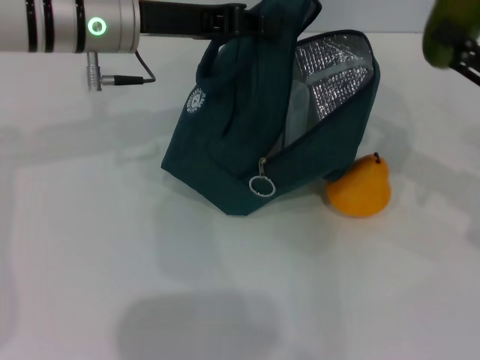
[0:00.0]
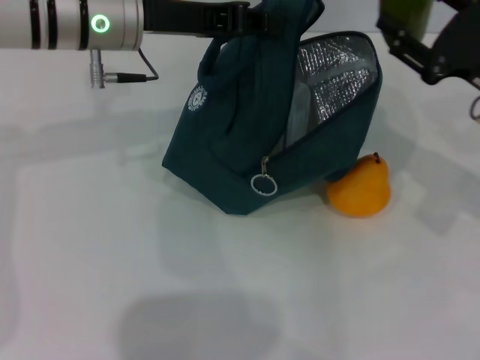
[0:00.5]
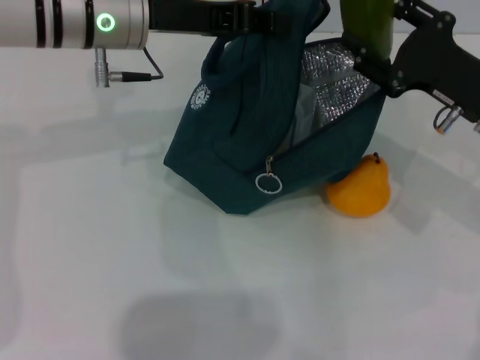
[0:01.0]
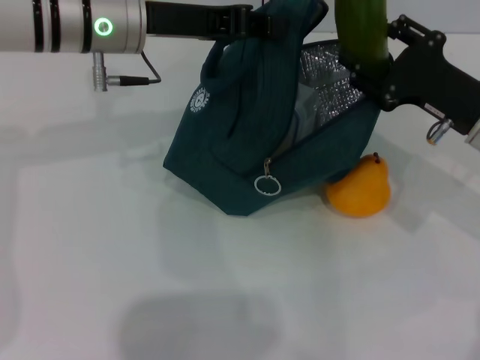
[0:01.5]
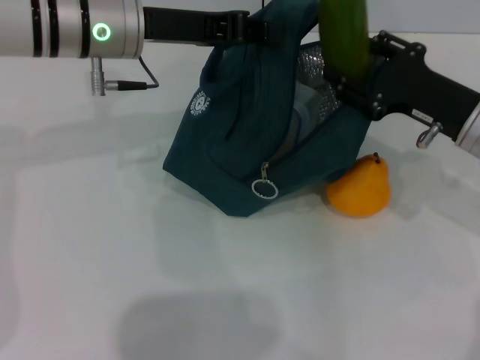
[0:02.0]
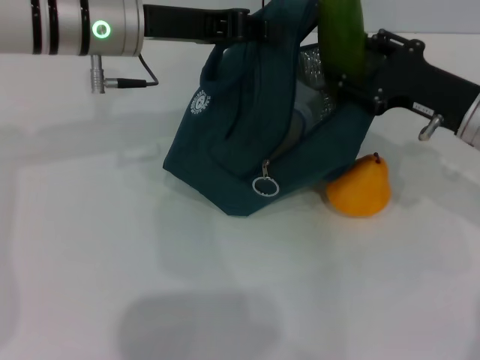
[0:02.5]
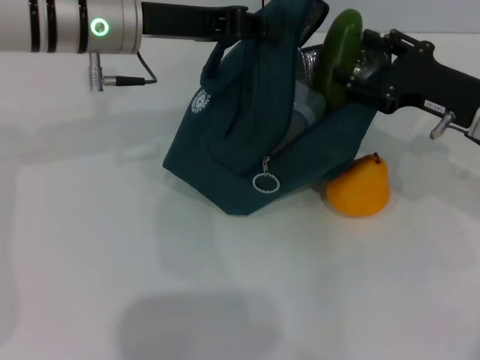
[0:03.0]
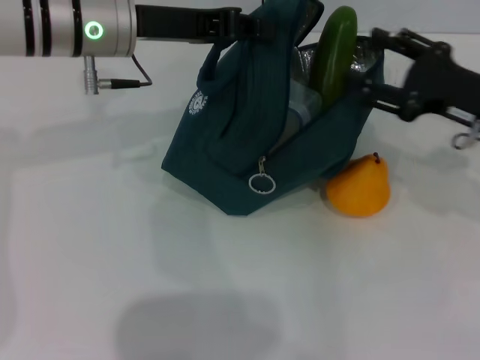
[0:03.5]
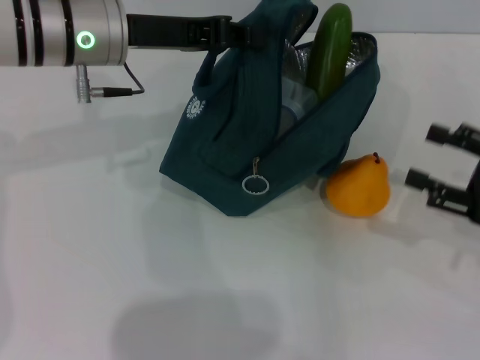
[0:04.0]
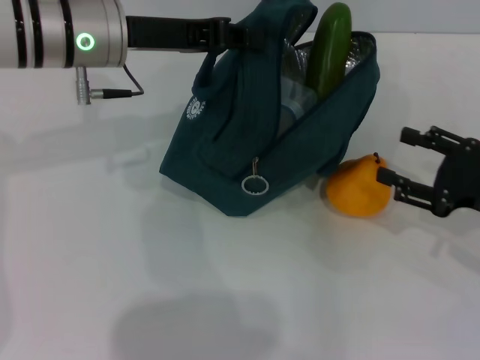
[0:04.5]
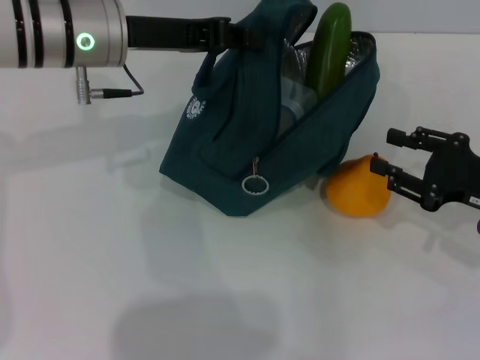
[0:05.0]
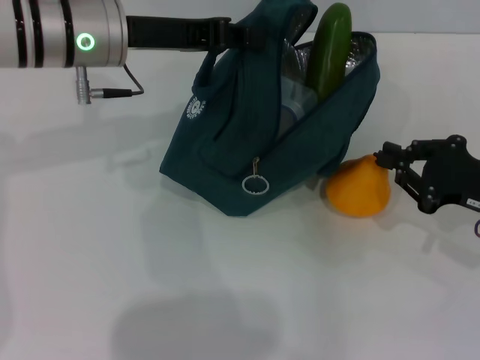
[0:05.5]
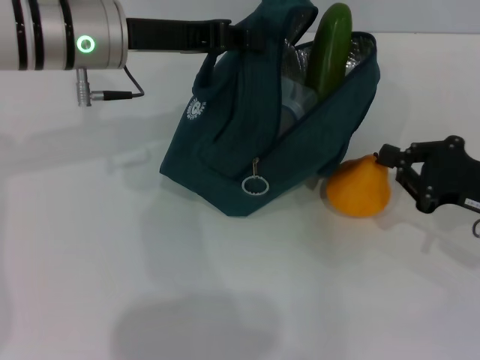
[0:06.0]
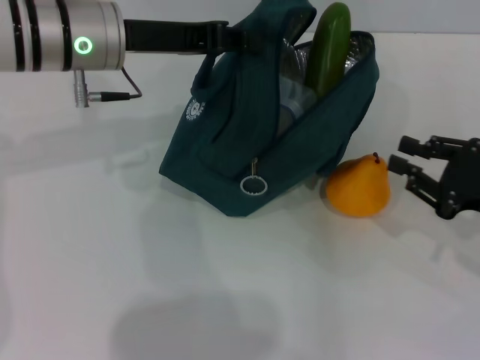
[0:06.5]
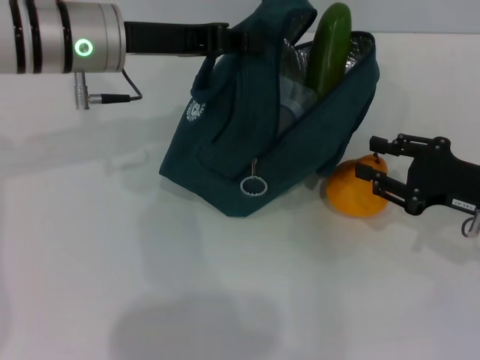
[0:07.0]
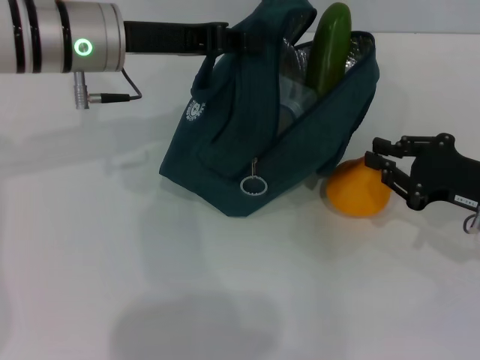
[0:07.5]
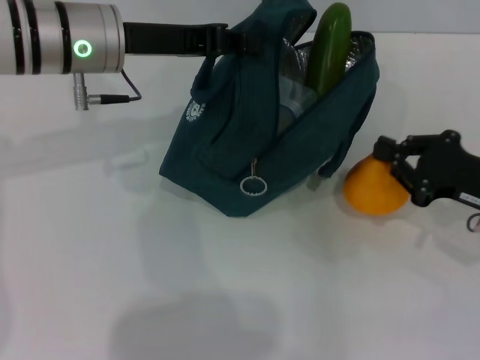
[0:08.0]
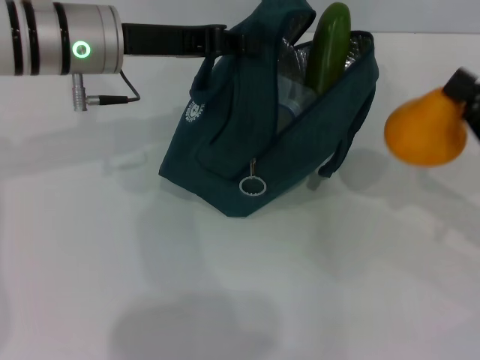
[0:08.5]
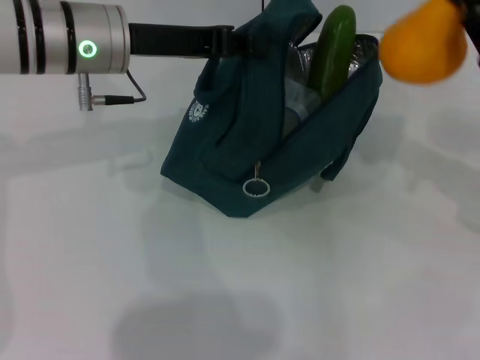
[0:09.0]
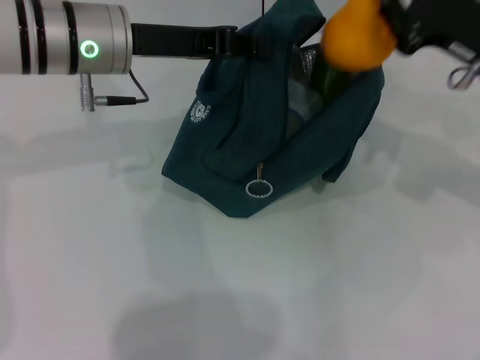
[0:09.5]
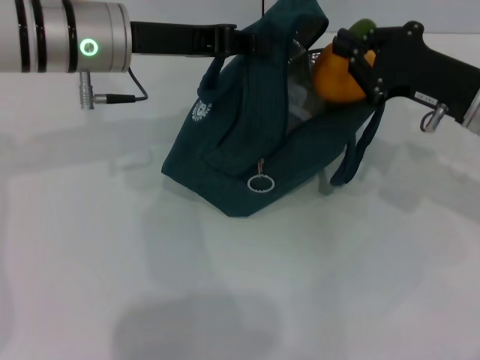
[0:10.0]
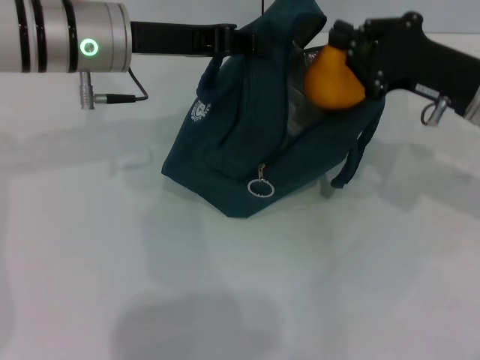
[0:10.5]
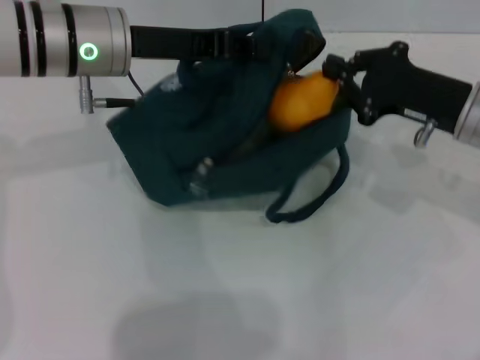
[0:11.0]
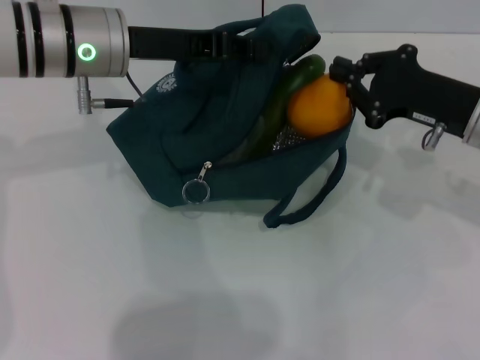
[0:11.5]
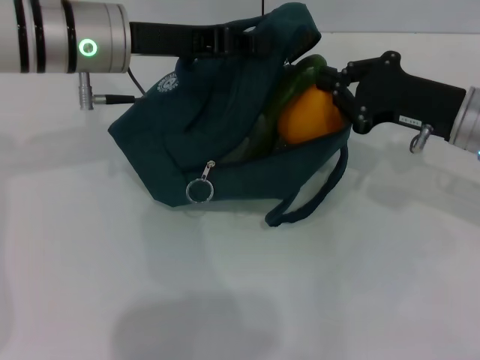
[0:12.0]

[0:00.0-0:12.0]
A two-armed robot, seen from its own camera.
Step, 0.0 to 3.0 s: Put the cucumber into the lunch bag with your right hand.
Step, 3.5 to 7.5 s: Grab the pear with your right hand.
0.0 to 2.0 s: The right gripper goes some 10 cm to the left and downward.
2.0 to 4.0 s: The right gripper heads to the right and backward, covering roughly 15 cm.
4.0 to 6.0 s: The right gripper ends up approximately 5 cm from where it was, and closes its fingers.
6.0 to 8.0 s: The right gripper opens, then closes once more.
8.0 to 10.0 s: The right gripper heads forward, upward and to the left, covering approximately 10 cm.
10.0 to 12.0 s: The grippers stay close to where they were, moving slightly.

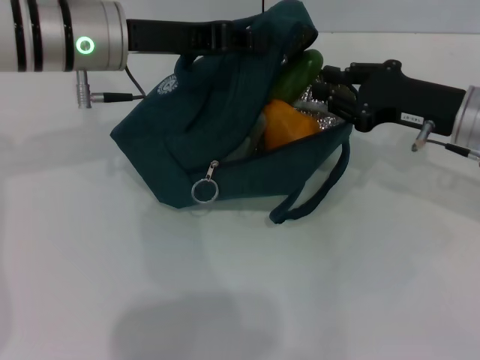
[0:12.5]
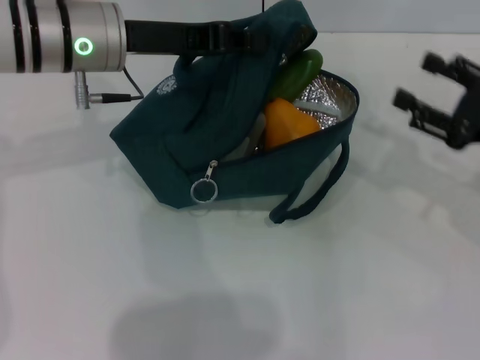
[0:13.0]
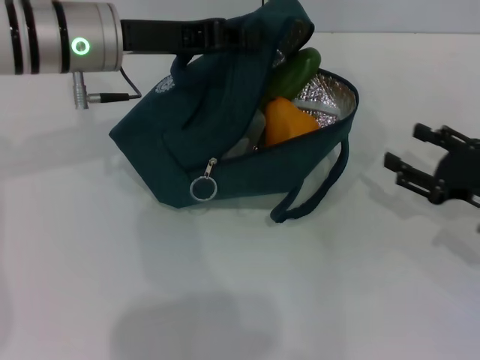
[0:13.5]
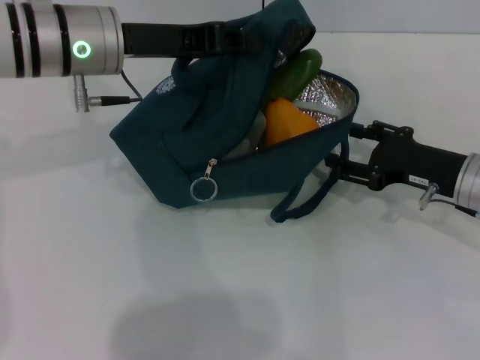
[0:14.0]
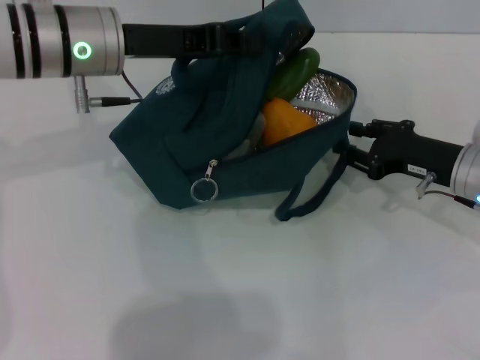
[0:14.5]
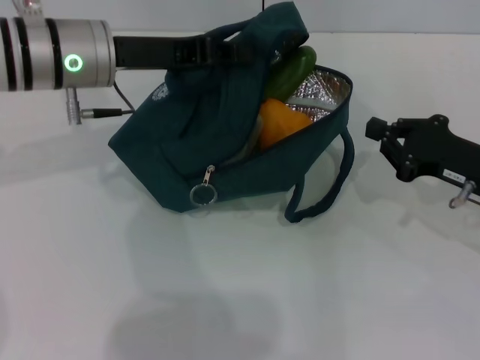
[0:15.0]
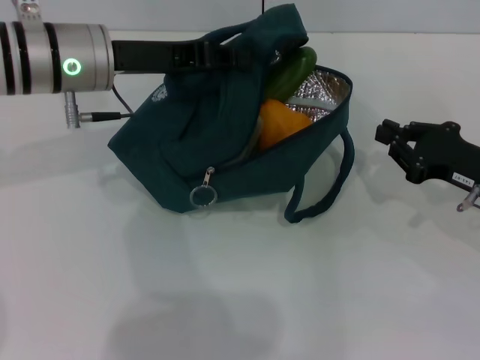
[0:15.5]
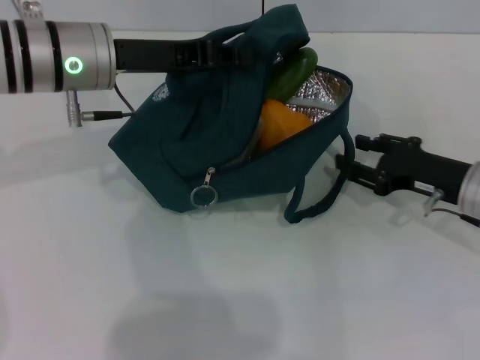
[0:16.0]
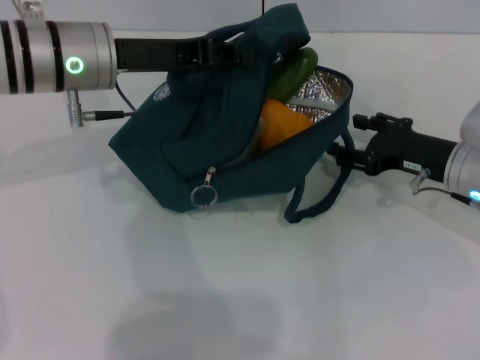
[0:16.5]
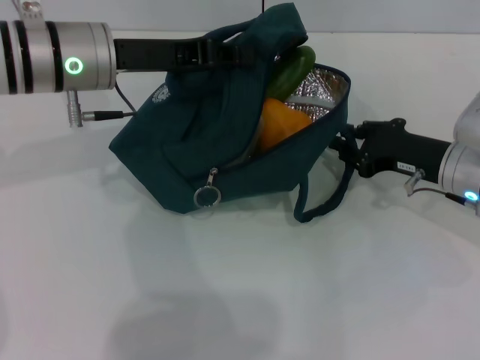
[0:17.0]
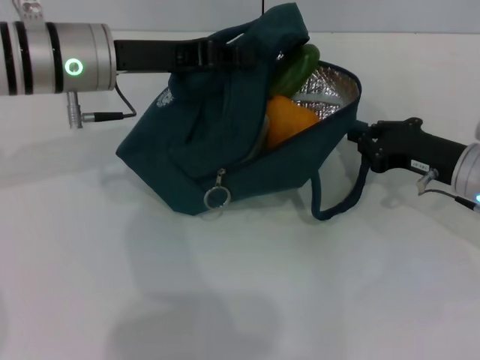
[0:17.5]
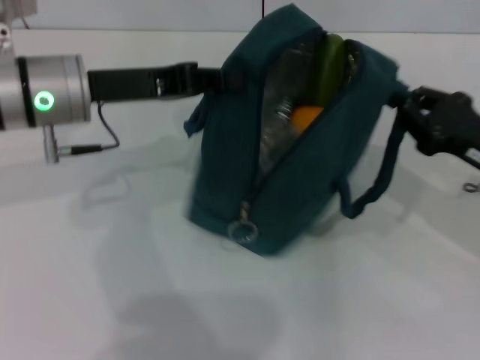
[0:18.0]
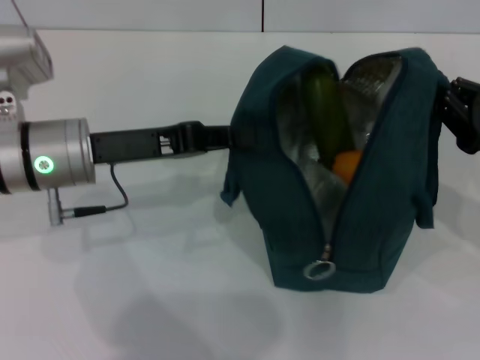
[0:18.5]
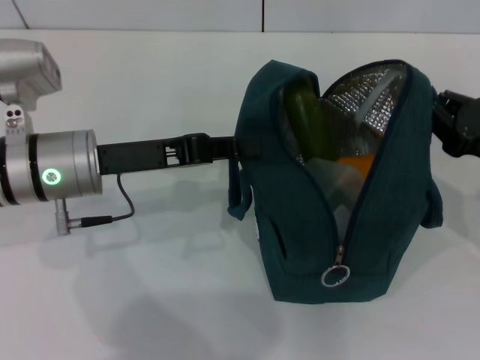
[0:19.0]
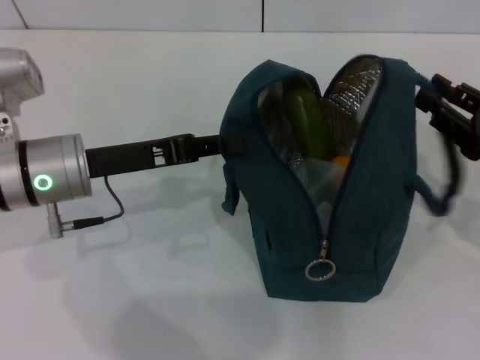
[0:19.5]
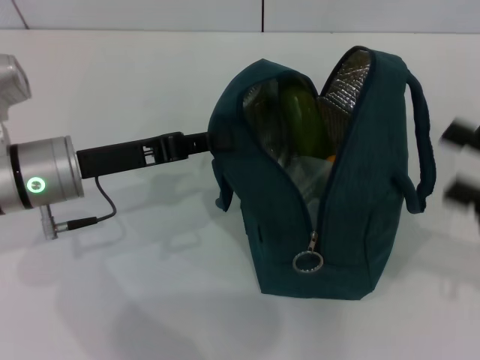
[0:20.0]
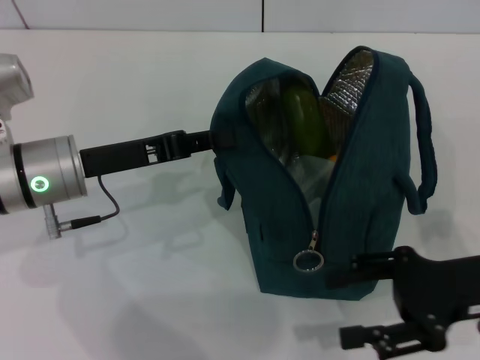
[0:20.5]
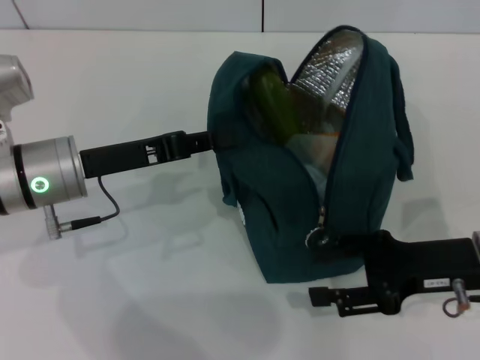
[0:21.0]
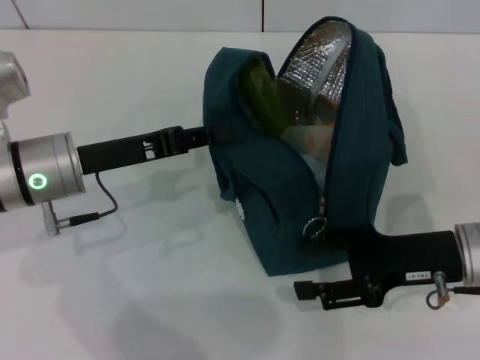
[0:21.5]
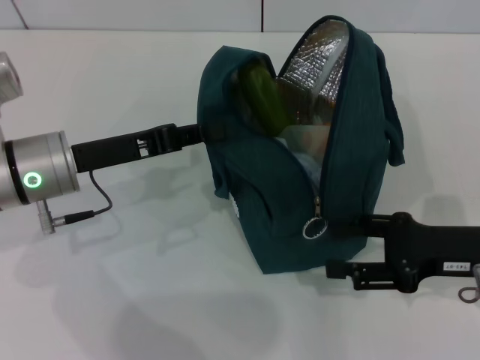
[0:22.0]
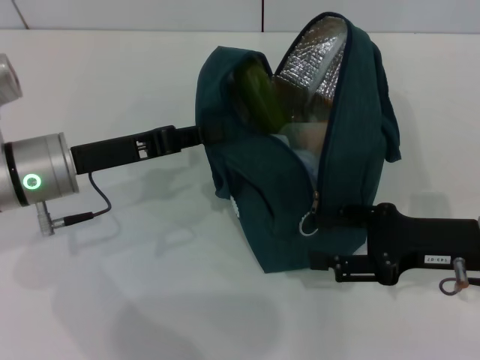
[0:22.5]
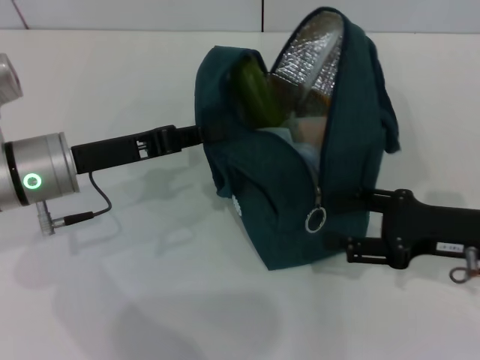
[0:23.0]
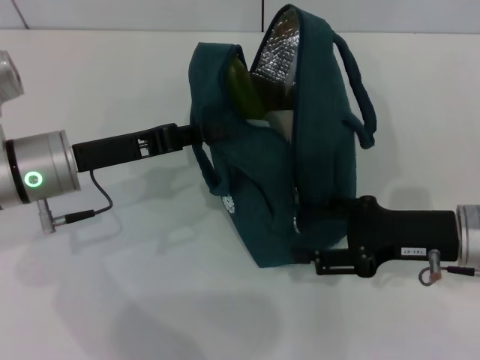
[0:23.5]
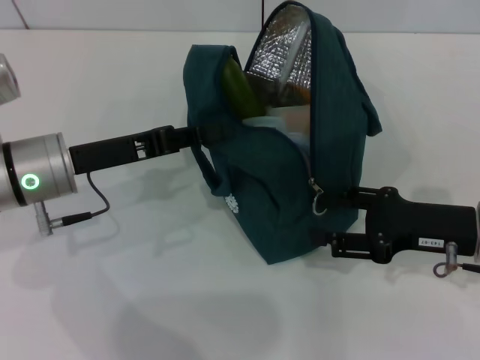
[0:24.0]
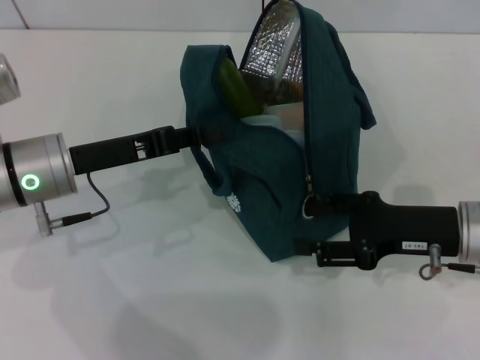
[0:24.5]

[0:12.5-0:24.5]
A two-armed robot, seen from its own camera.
Step, 13.0 to 19.5 s: Hold the lunch bag with your right hand.
12.5 to 14.5 s: The right gripper is displaced downward by about 5 cm, moves some 10 cm to the right and comes back, and opens its fingers.
14.5 to 16.5 s: The right gripper closes, then opens again.
16.5 to 18.5 s: The left gripper travels backward by roughly 5 cm; the right gripper heads to the right and backward, covering about 10 cm, and closes its fingers.
18.5 to 20.5 s: The right gripper moves about 5 cm, and opens.
22.5 to 24.5 s: The grippers stay close to where they were, moving slightly.

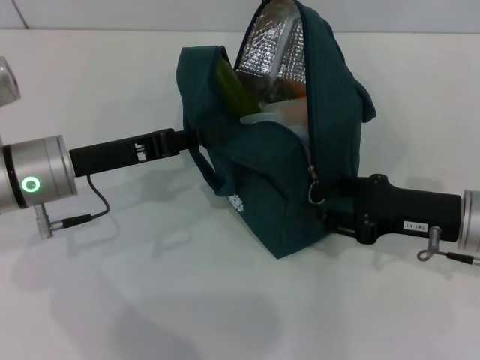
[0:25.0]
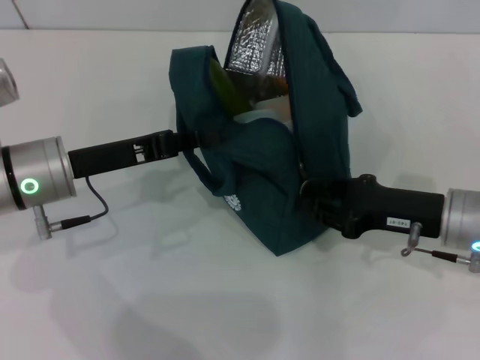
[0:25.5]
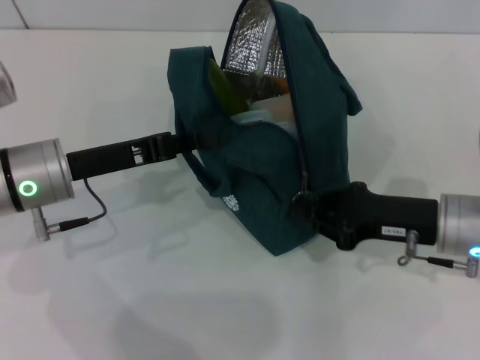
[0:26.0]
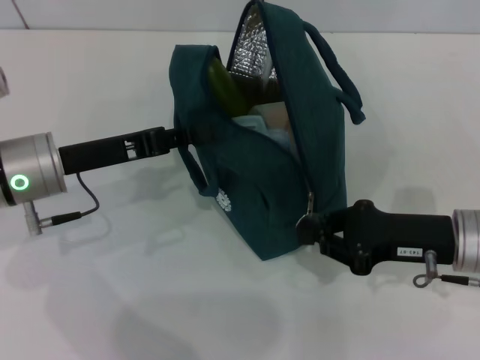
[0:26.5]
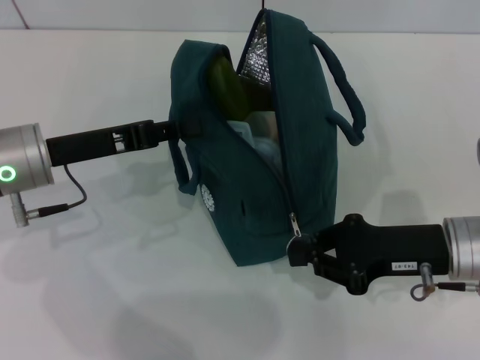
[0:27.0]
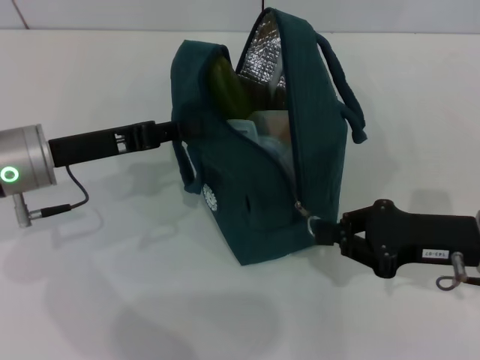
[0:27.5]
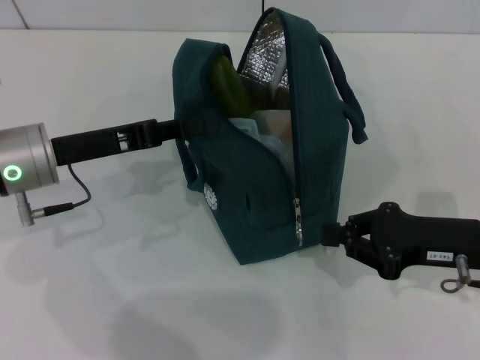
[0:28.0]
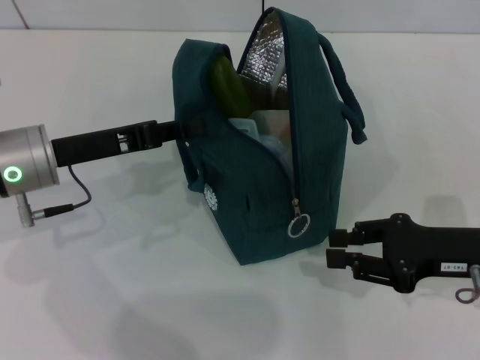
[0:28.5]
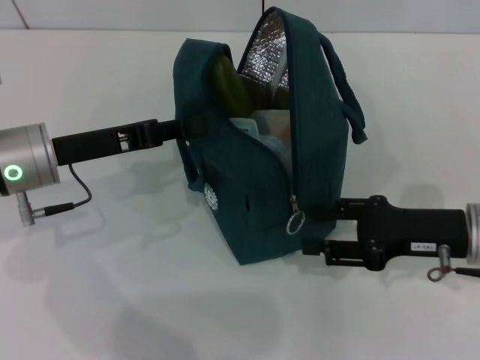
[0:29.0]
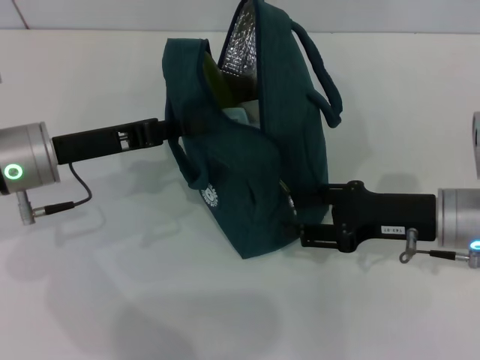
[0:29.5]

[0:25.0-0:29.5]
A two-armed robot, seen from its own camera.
25.0 to 27.0 s: The right gripper closes up.
27.0 to 29.5 s: The right gripper opens.
